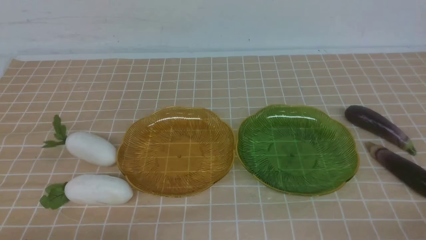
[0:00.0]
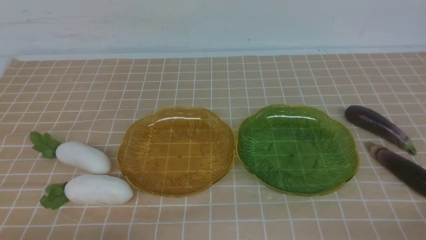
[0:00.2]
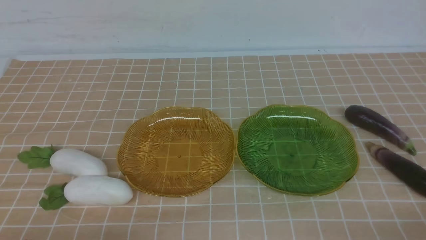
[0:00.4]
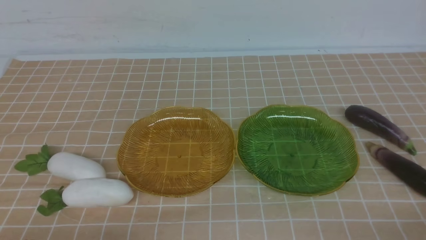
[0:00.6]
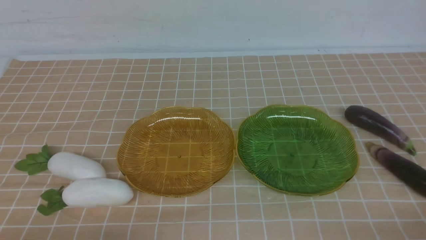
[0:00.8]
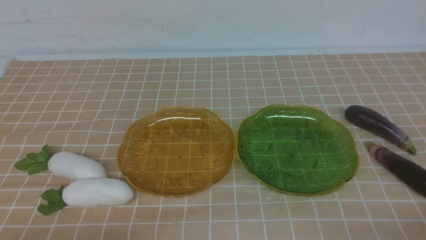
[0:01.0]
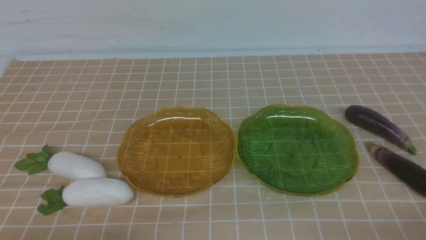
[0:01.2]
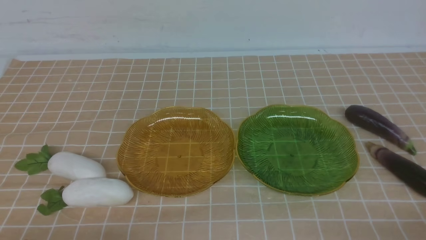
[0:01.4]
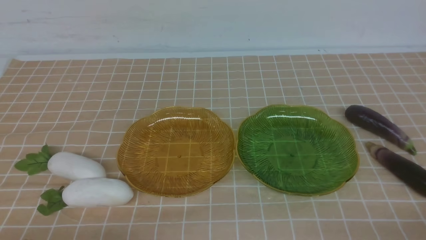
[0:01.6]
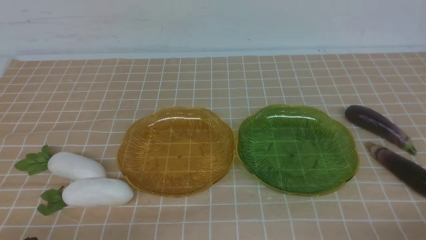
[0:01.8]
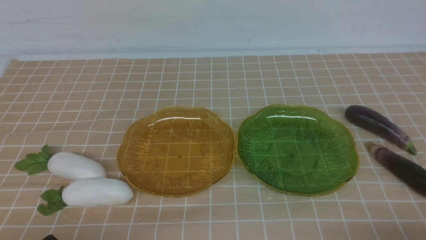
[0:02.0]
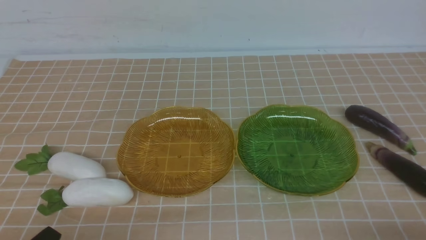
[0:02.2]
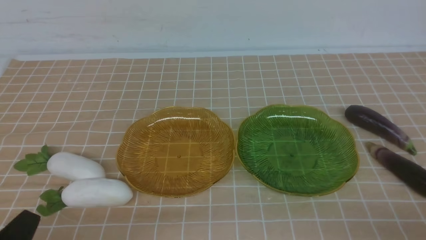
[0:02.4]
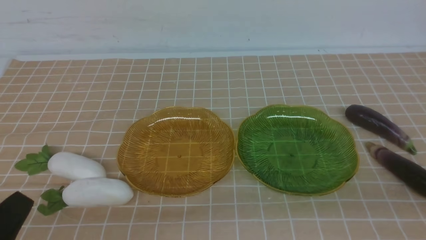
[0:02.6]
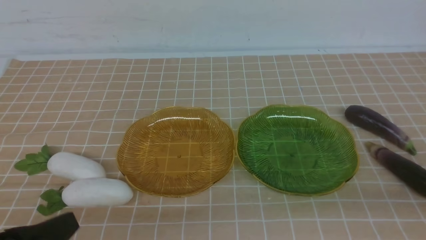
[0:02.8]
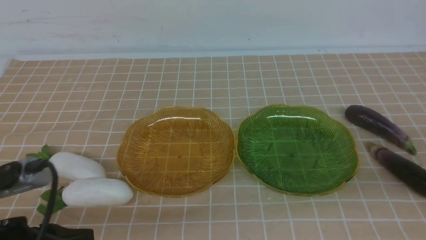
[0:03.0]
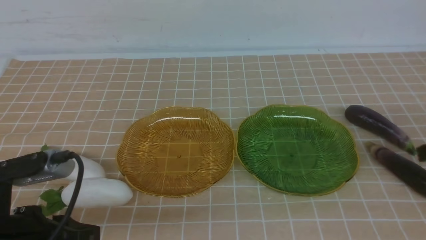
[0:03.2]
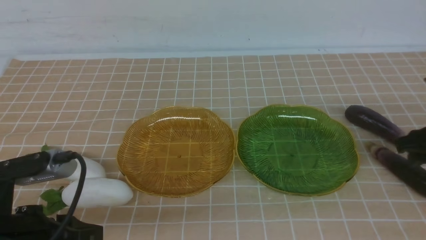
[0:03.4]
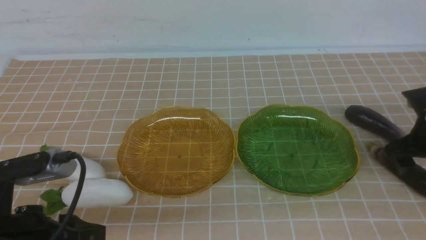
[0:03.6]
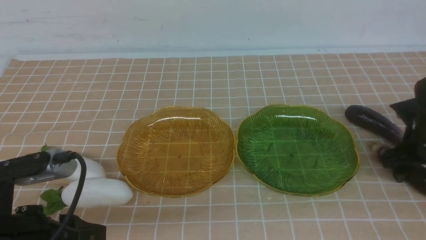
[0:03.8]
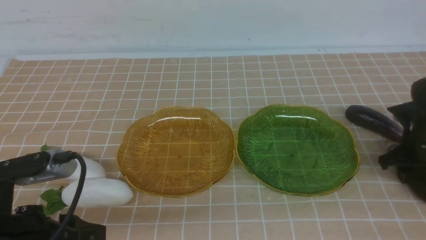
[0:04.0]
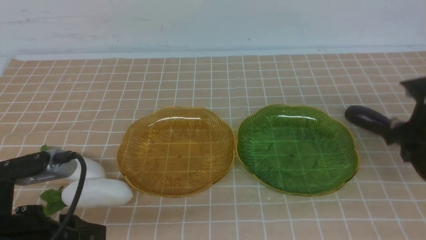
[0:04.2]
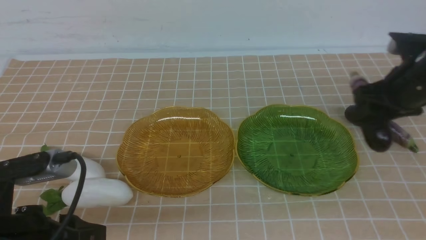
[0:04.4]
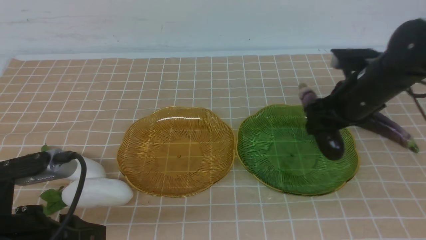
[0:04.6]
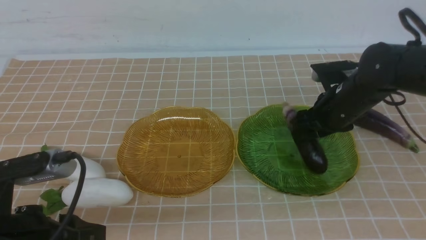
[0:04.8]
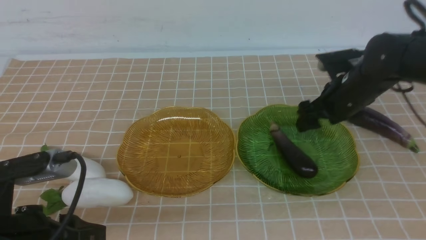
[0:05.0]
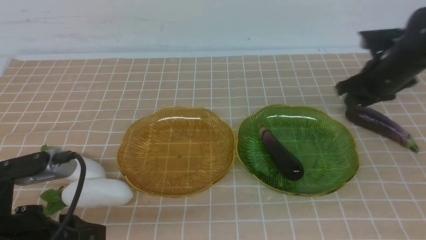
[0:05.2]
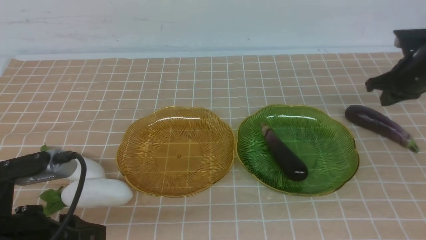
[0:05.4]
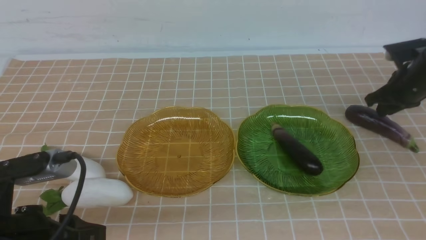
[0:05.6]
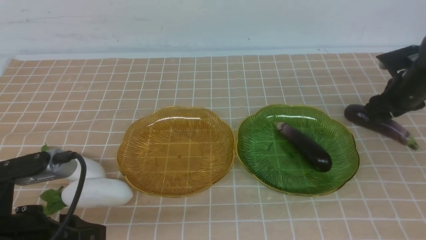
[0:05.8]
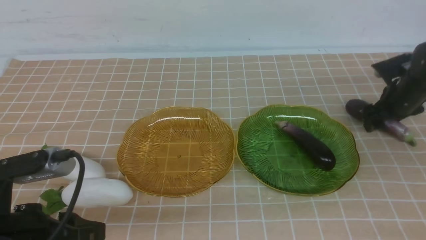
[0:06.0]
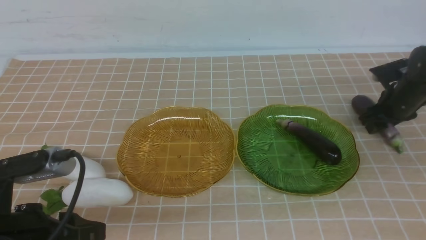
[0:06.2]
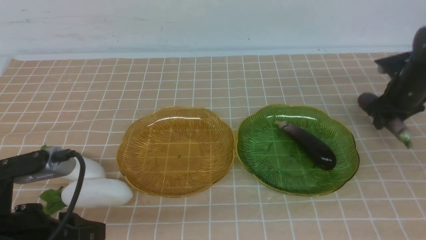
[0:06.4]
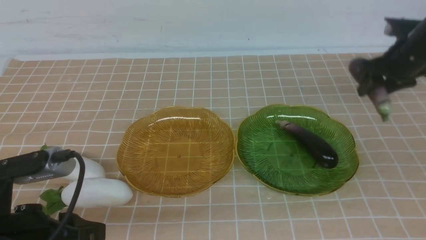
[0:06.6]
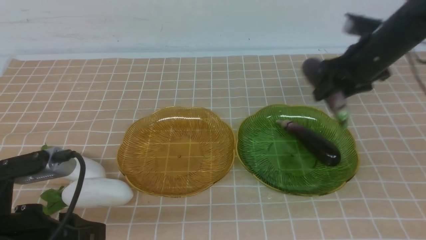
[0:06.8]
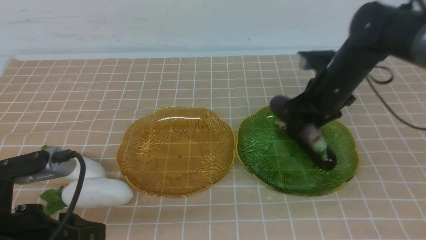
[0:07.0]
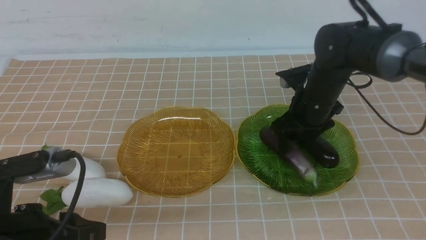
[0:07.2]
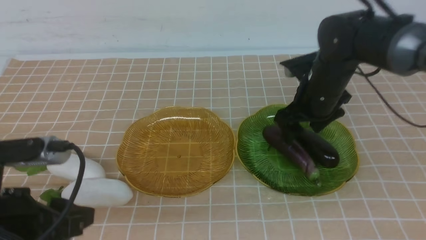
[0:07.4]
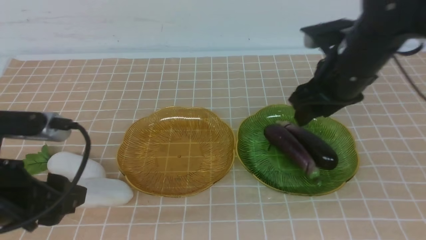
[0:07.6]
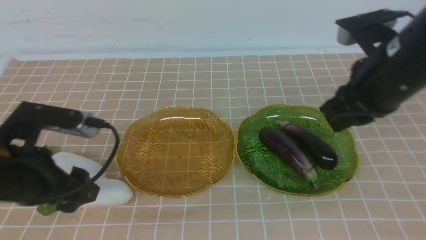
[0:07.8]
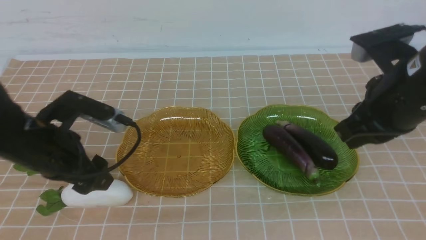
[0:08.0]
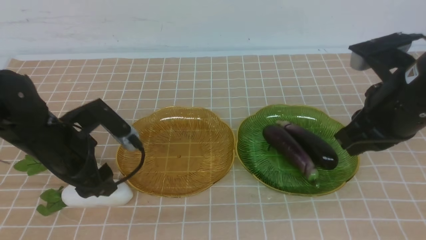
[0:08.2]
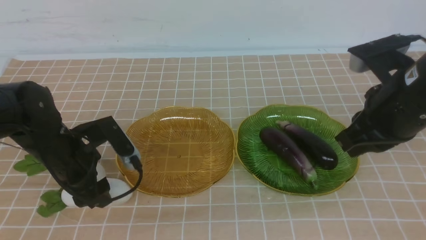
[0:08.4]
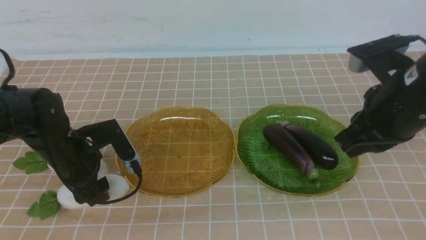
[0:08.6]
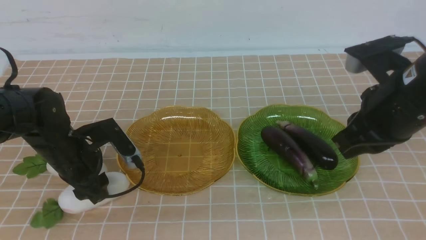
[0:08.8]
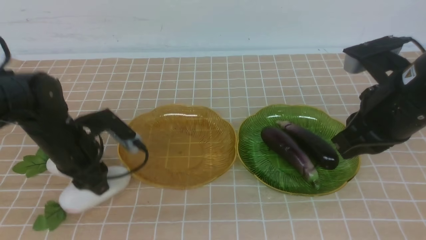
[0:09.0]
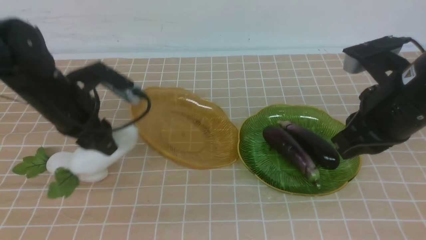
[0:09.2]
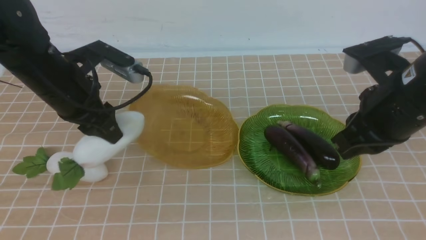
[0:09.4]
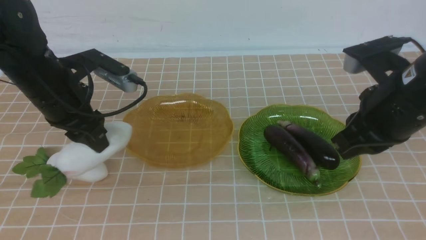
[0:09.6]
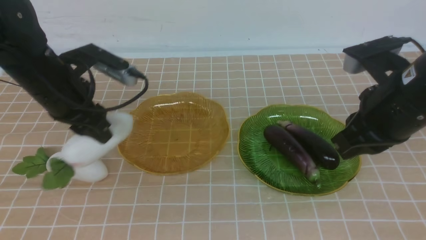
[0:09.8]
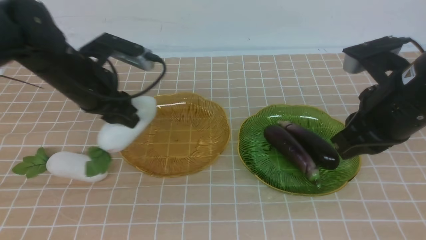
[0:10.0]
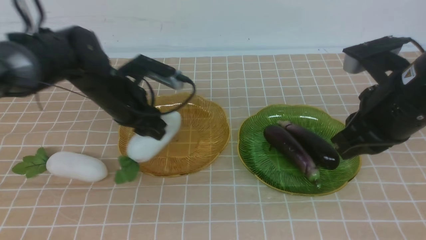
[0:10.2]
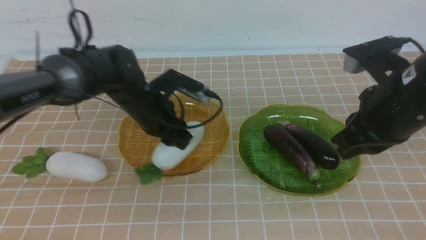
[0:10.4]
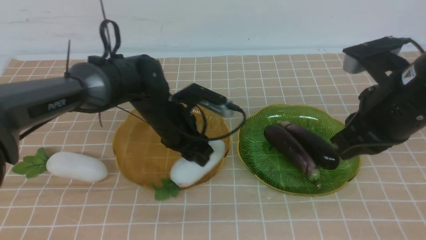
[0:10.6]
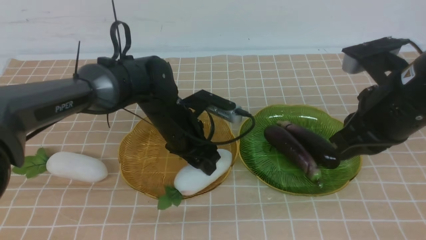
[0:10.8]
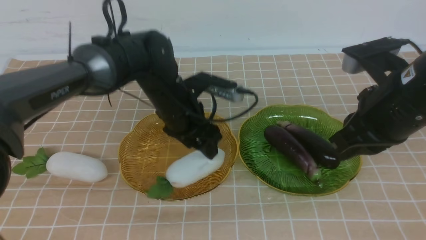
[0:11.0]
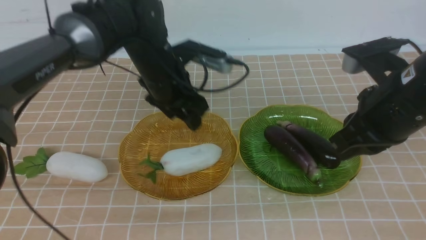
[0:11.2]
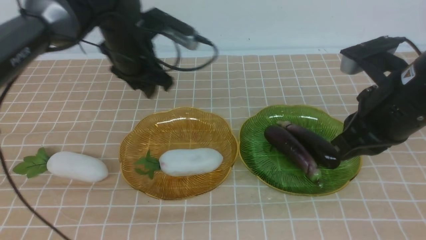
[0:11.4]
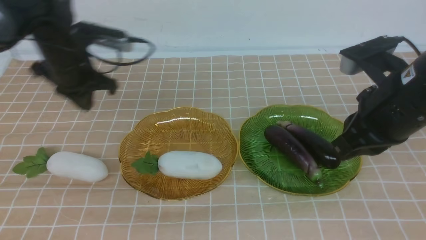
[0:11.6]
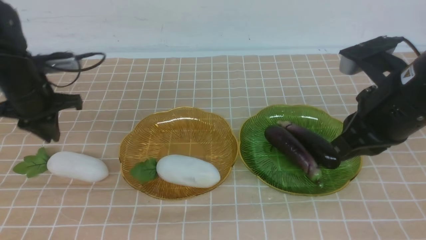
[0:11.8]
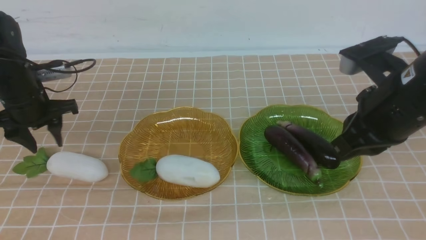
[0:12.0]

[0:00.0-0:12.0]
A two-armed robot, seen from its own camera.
Step, 0:00.0 to 0:07.4: use the right arm to grab an eggplant and put it into the right plate.
0:00.0 to 0:01.6: The grippers make only small movements.
0:01.6 to 0:03.0: The right gripper travels forward and upward by some 20 cm, and opens up. Meanwhile the left gripper travels upward and forward by approximately 10 cm.
0:03.0 to 0:04.4: The right gripper travels forward by some 10 cm.
0:04.4 to 0:06.0: The right gripper is displaced forward, downward and to the right by some 15 cm, and closes and opens again.
0:06.0 to 0:07.6: The left gripper shifts about 5 cm forward, and opens up. Meanwhile the right gripper moves upward, to the left and backward, some 30 cm, and closes.
0:07.6 to 0:09.0: The left gripper heads forward, covering about 15 cm, while the right gripper closes its fingers.
0:09.0 to 0:10.4: The left gripper shifts roughly 10 cm to the right and forward.
0:10.4 to 0:12.0: The left gripper travels to the left by roughly 20 cm.

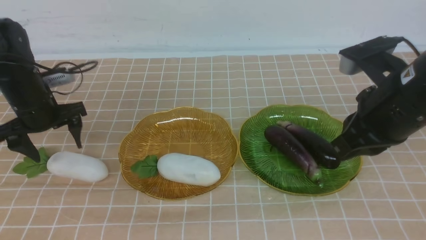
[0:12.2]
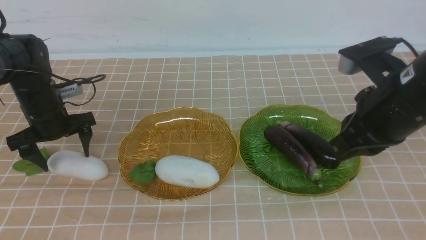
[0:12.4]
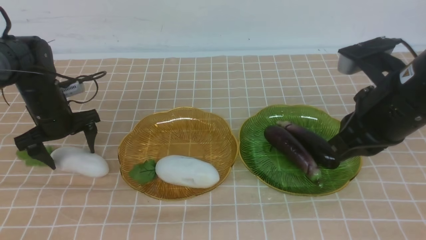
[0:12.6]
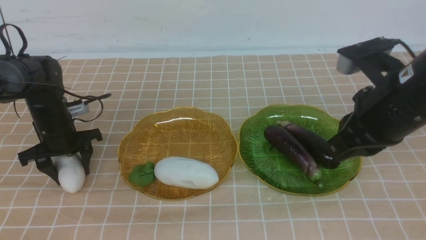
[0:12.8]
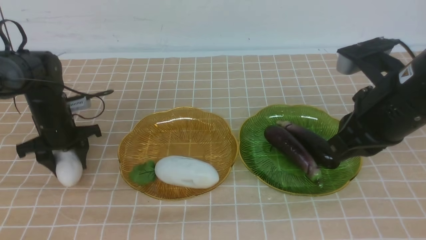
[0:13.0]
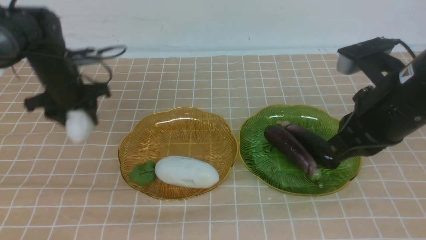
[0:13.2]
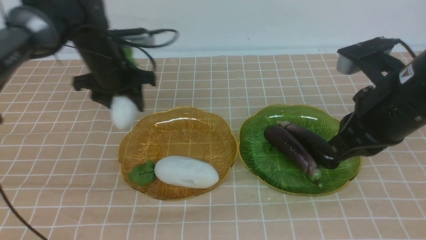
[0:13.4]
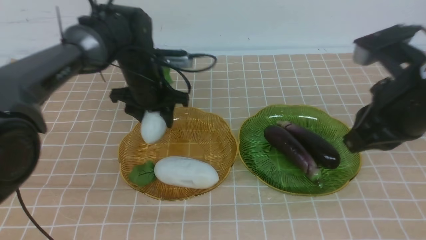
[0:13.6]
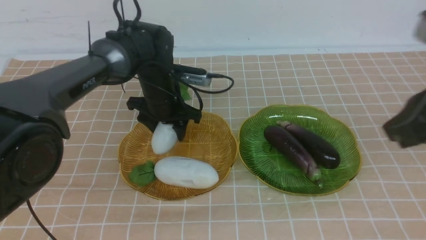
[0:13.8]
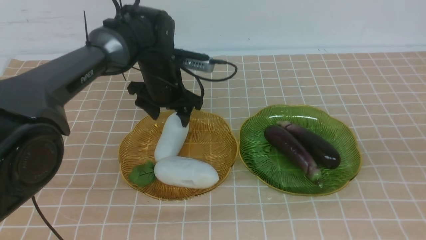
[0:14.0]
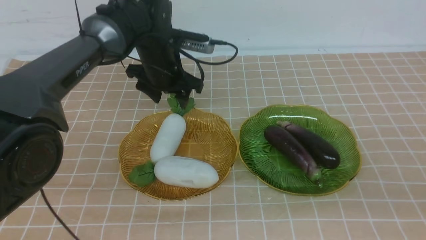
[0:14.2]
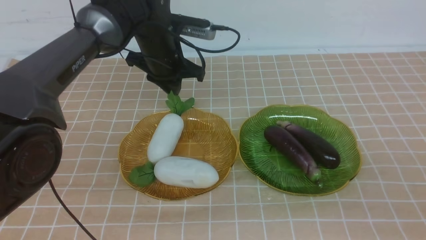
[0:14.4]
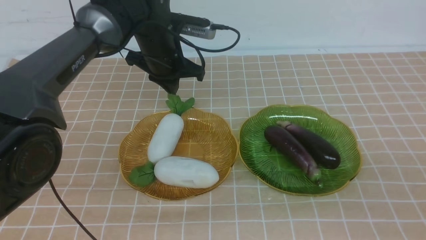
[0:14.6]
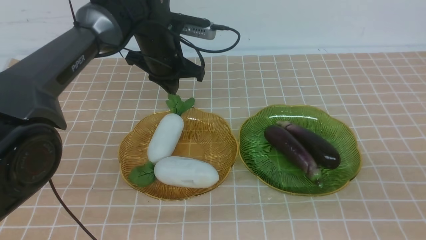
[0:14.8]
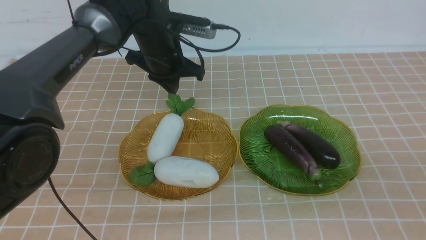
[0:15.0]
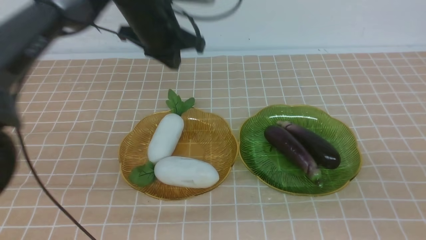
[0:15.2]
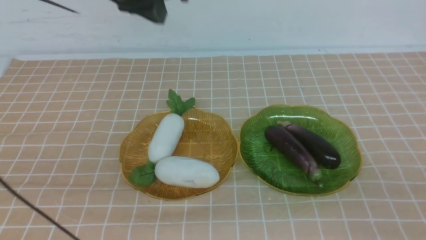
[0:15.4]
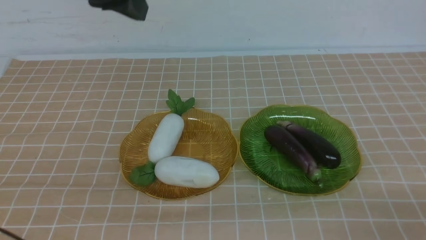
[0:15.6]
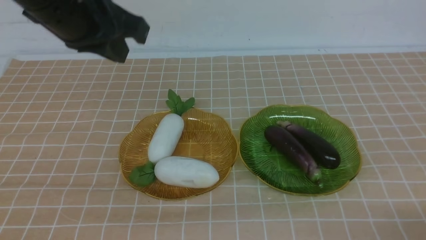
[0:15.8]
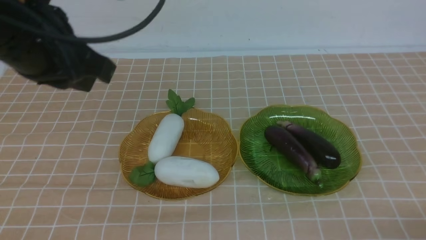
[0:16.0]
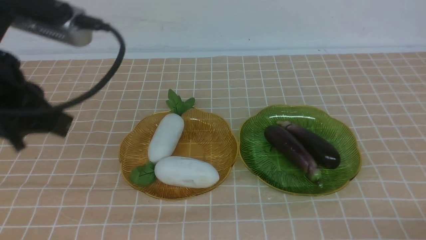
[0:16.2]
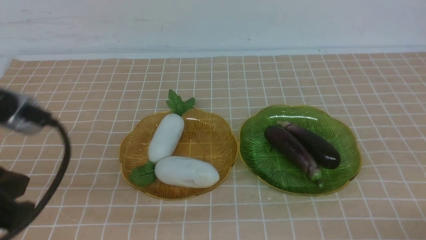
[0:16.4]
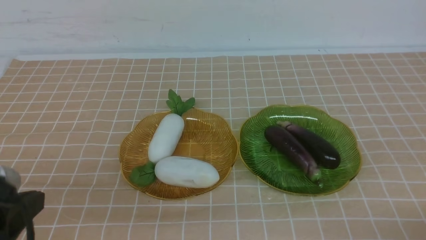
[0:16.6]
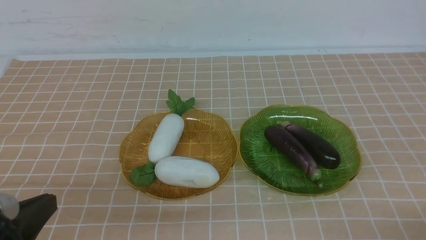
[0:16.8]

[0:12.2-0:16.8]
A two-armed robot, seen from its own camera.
Step, 0:12.2 to 0:14.2: use the left arm to grab a radish and put it into the left plate.
0:12.2 to 0:13.8: The right gripper shifts approximately 10 cm backward and upward. Meanwhile the left gripper goes approximately 20 cm to the right.
0:13.8 to 0:15.2: The left gripper is displaced upward by about 15 cm, and closes up. The right gripper travels backward, downward and to the right by approximately 15 cm.
0:15.2 to 0:16.8: The right gripper moves downward, approximately 10 cm. Meanwhile the left gripper shifts some 35 cm backward.
